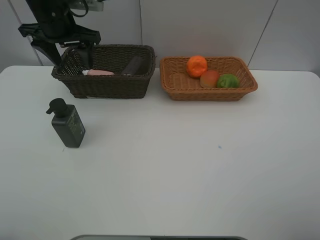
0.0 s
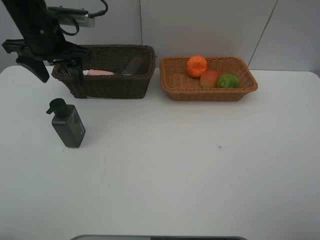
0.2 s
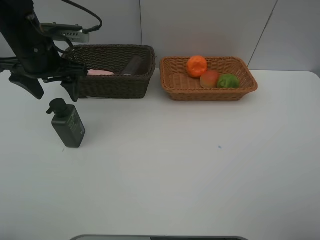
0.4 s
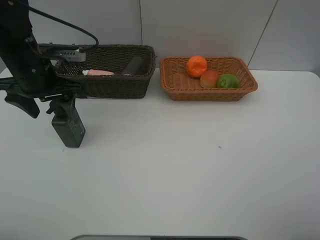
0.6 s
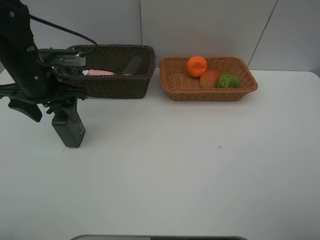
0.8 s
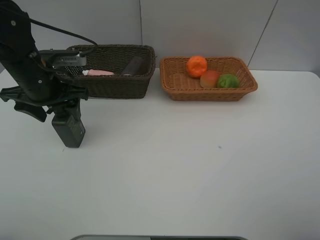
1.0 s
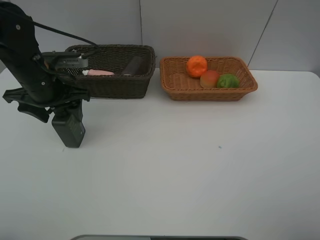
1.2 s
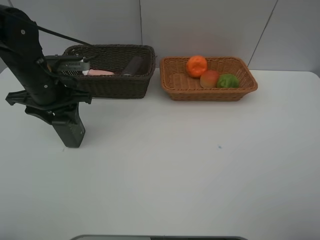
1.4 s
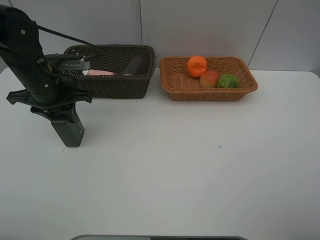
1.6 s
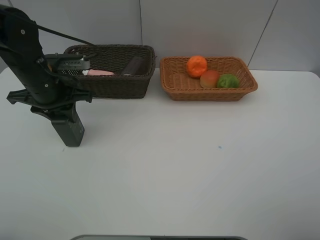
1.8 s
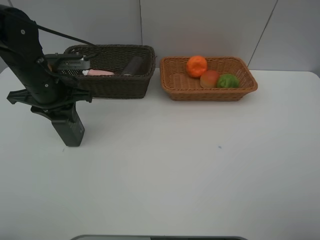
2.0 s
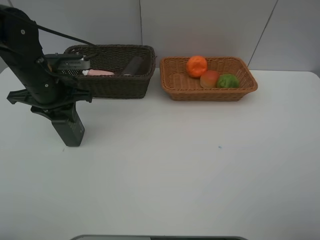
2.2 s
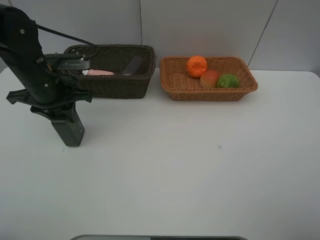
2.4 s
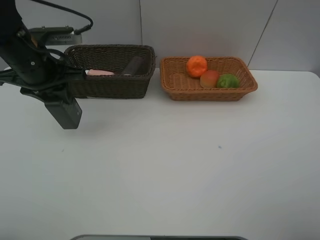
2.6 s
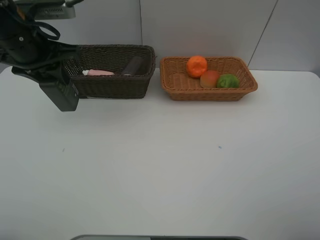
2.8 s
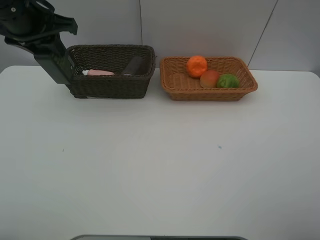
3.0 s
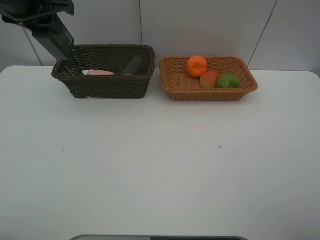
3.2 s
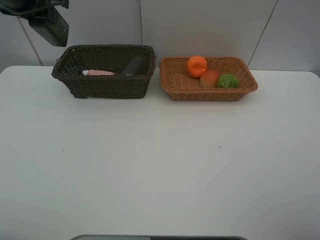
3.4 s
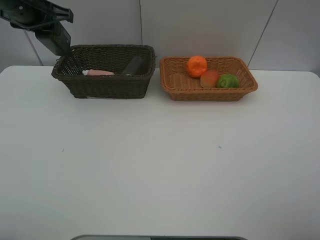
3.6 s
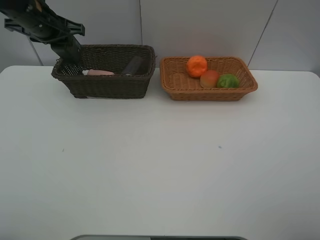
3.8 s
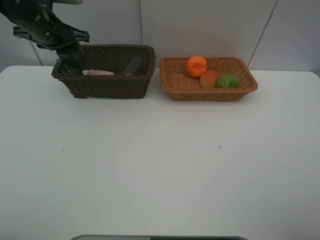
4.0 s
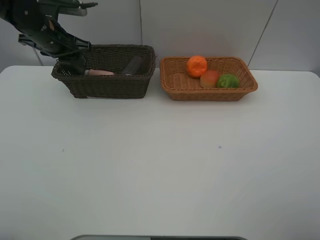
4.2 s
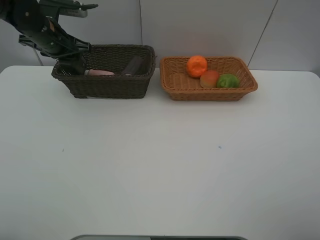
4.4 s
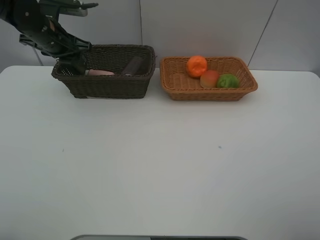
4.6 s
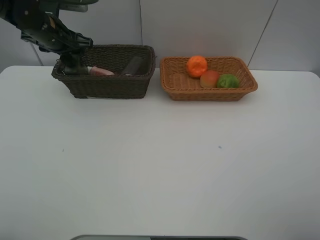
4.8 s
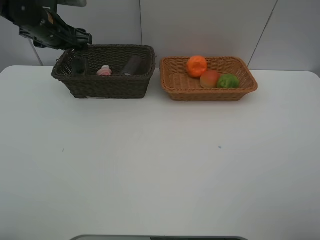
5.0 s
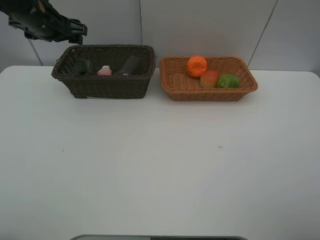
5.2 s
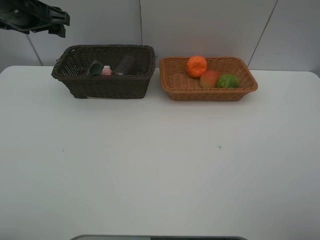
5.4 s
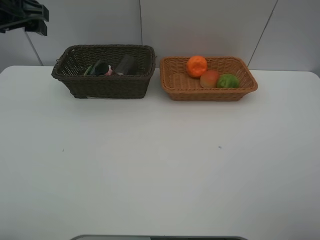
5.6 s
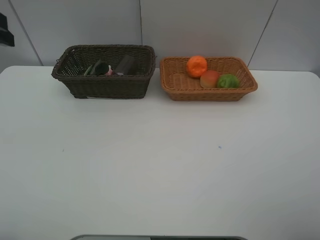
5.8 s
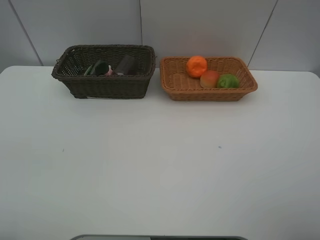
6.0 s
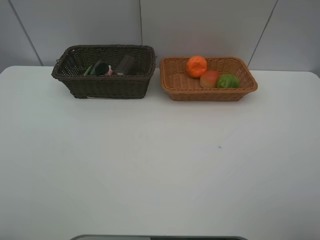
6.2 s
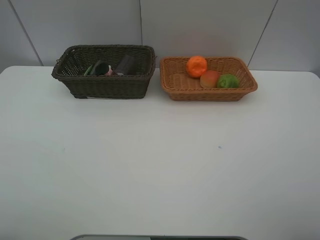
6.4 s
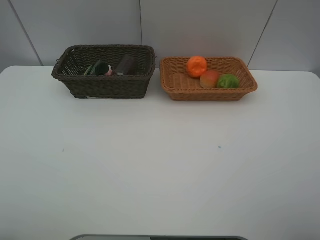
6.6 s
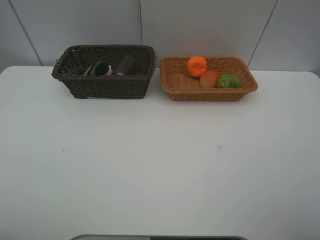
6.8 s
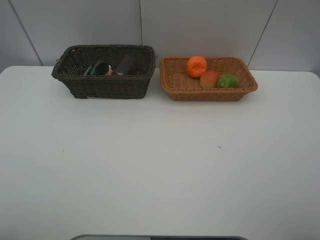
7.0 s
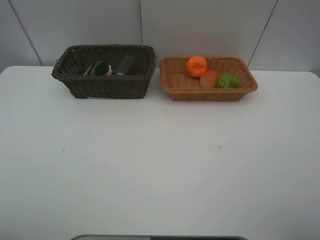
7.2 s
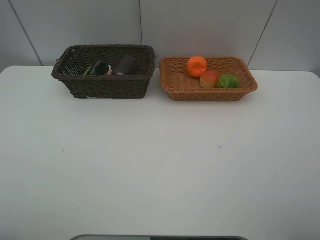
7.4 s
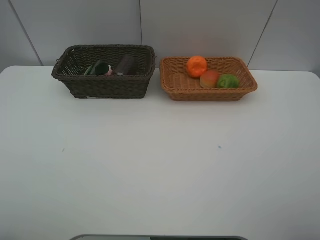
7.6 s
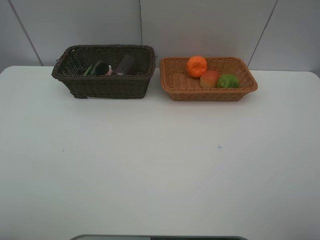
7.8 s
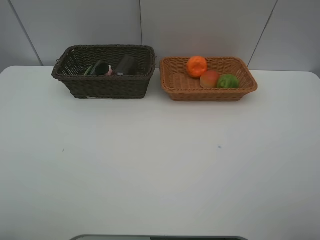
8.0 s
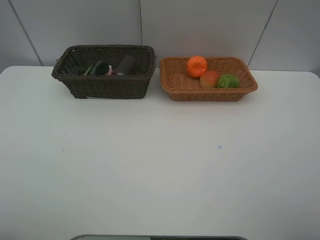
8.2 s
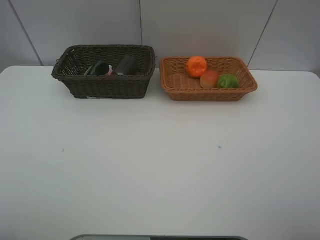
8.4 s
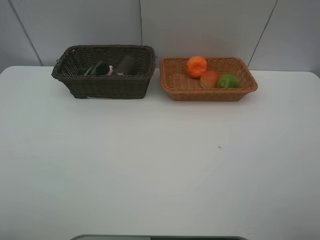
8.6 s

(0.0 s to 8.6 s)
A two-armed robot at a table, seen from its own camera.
Task of the whole recording: place multiple objects separately in different baskets.
0.0 s - 1.4 s: The left gripper heads downward and backward, covering approximately 10 cm, and closes.
1.4 s - 2.8 s: The left gripper shifts approximately 10 cm upward.
2.8 s - 4.4 s: The left gripper travels forward and downward by some 15 cm.
4.4 s - 5.8 s: The left gripper heads backward and upward, covering approximately 25 cm, and opens up.
7.2 s - 8.6 s: Both grippers stay about where they are.
